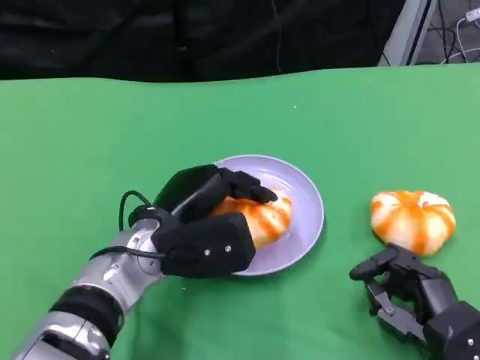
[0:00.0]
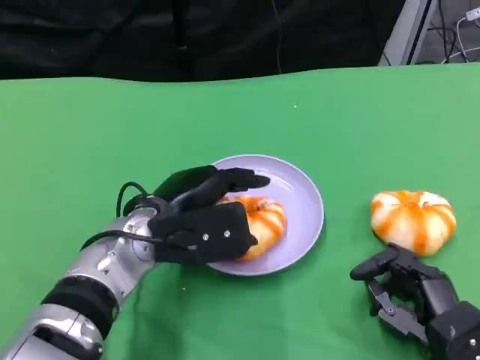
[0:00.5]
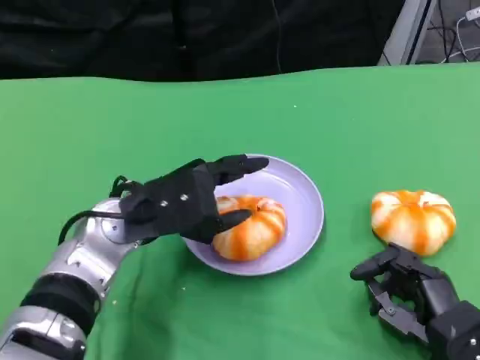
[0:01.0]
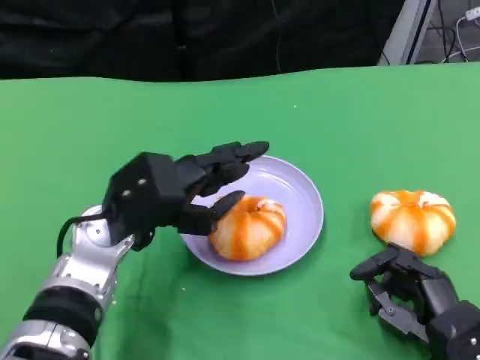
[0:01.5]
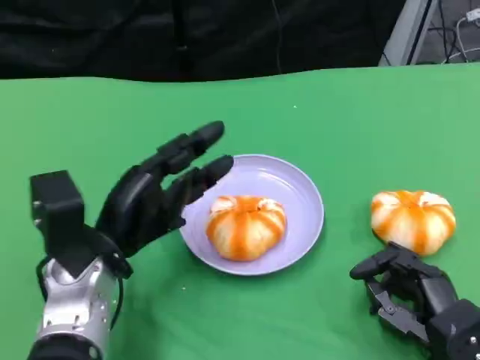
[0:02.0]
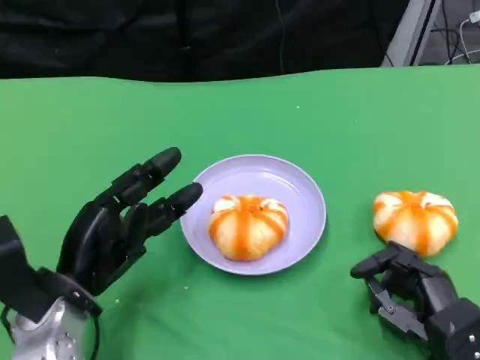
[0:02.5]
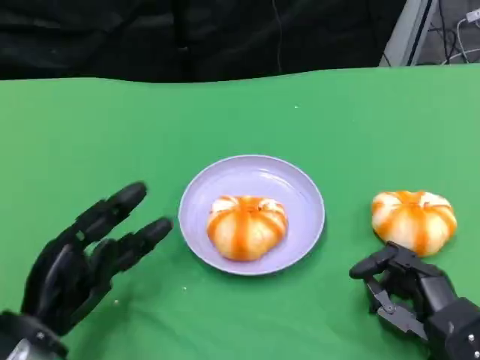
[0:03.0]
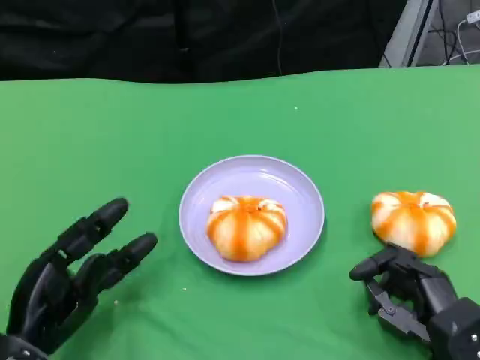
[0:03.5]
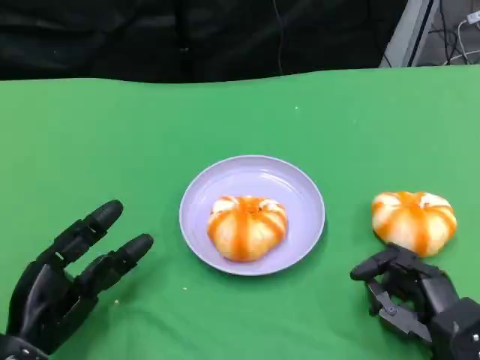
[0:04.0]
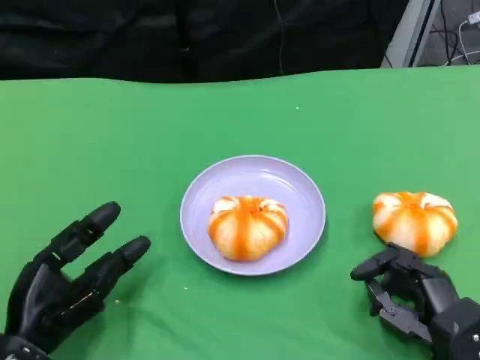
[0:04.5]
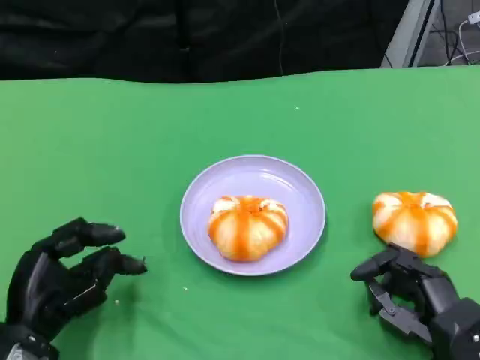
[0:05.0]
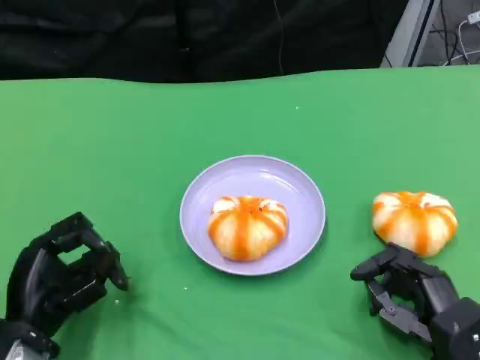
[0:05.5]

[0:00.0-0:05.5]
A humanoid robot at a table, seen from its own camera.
Task of the whole recording: Grasp the bread from the table and place it into the plate.
0:00.0 to 0:02.0: The left hand moves to the left, roughly 5 cm.
0:02.0 to 0:03.5: The left hand goes approximately 15 cm backward, to the left and downward.
0:03.5 to 0:05.5: The hands move only a little.

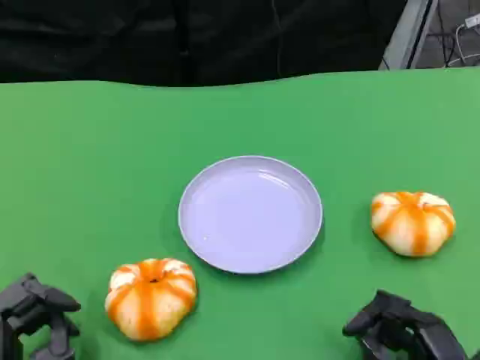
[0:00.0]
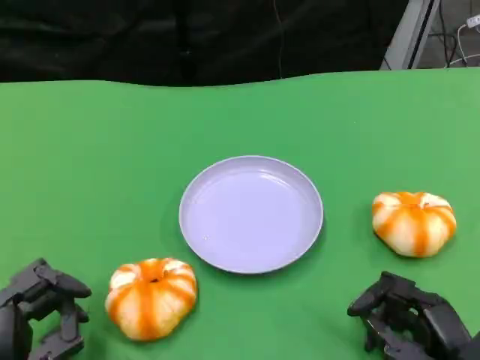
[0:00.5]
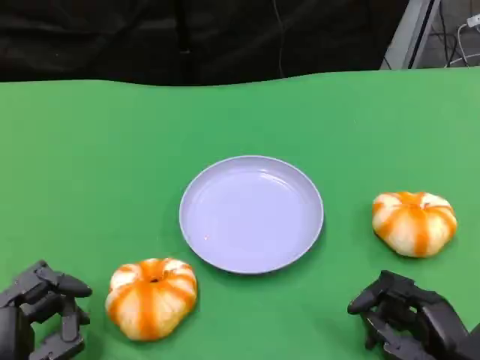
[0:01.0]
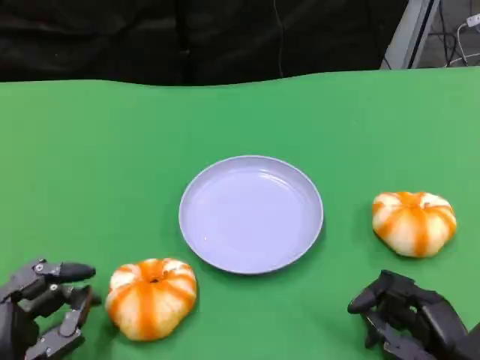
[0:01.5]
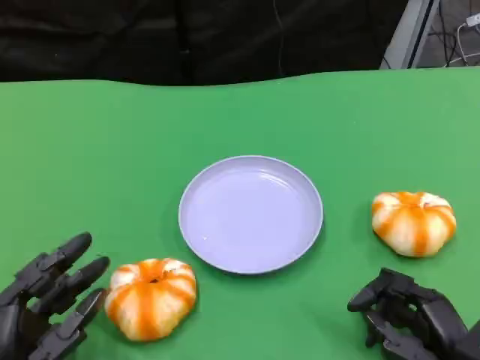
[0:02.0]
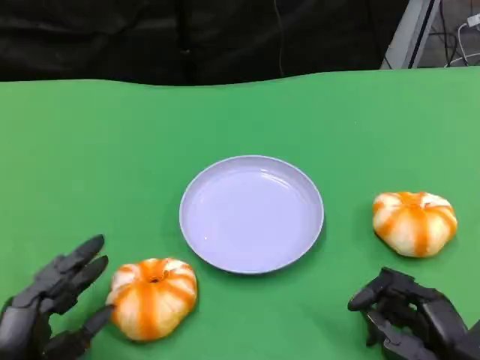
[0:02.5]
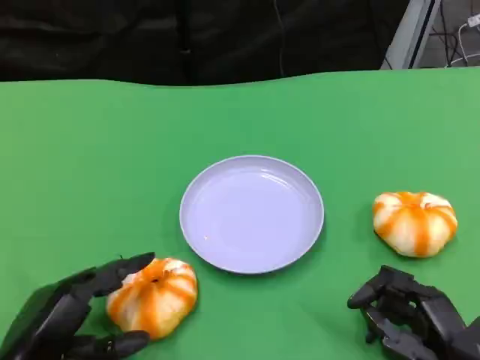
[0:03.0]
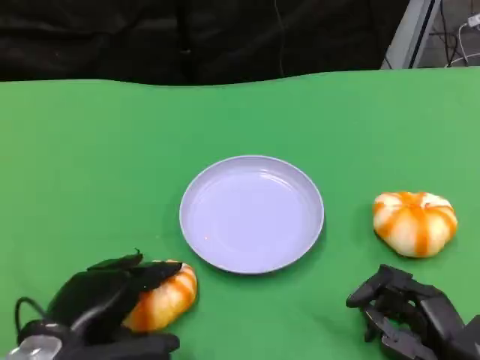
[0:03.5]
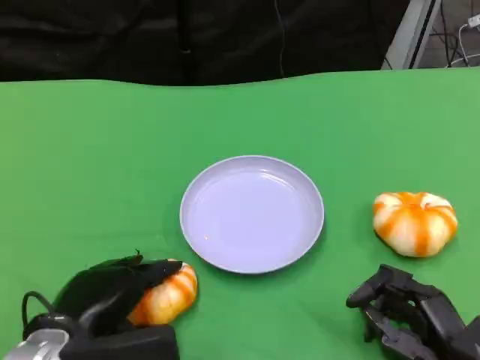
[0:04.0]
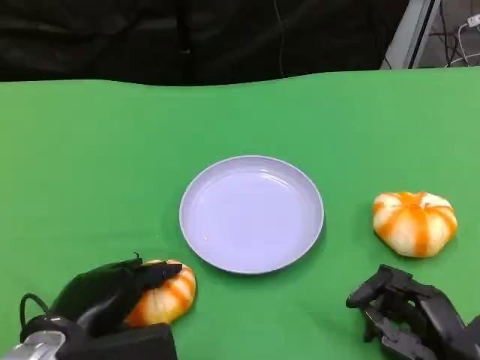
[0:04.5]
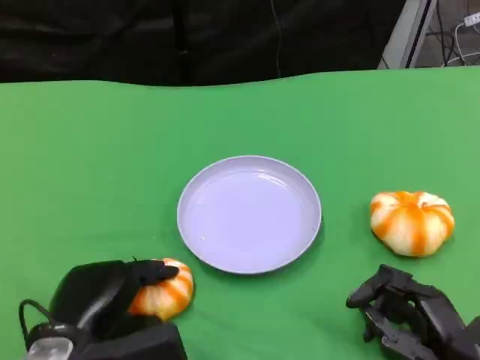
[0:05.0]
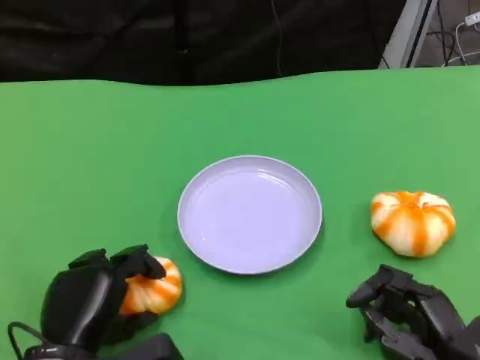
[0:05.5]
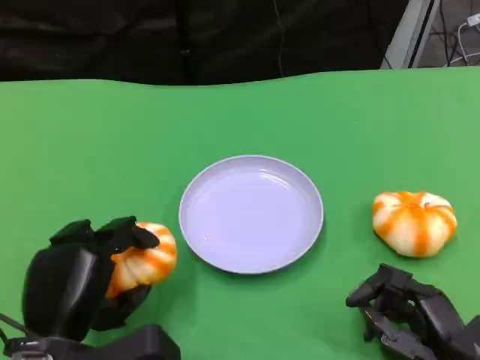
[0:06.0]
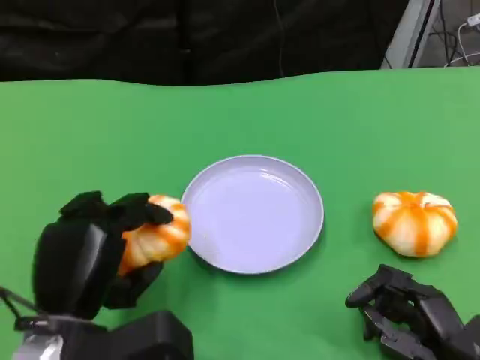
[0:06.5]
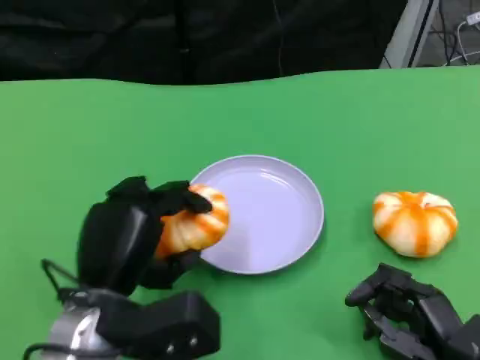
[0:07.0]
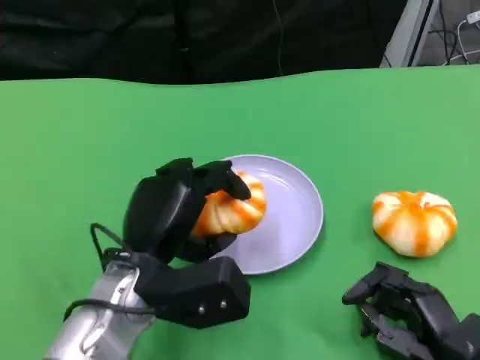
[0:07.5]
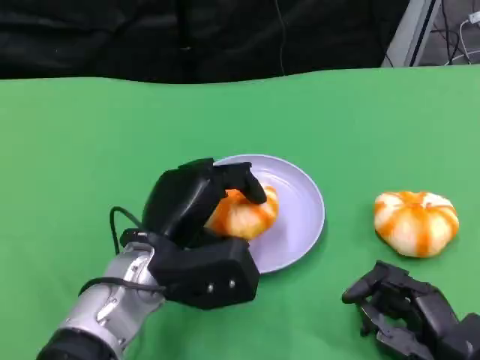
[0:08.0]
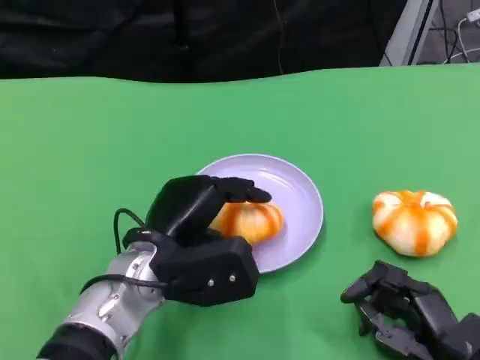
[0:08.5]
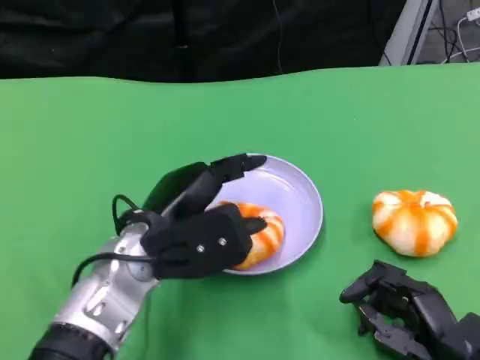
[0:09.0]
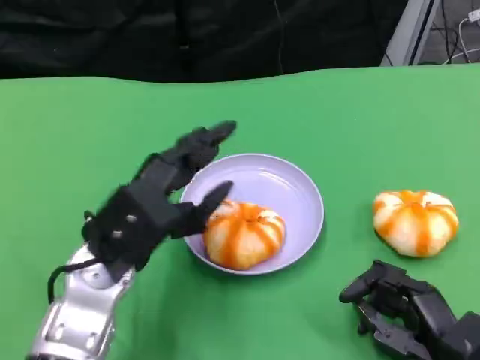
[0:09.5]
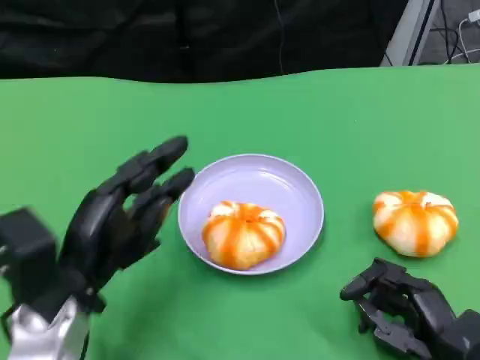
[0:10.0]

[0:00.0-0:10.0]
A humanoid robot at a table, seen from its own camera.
Task of the whole recording: Grasp the bread from the table and place it into the plate.
0:00.0 to 0:02.0: The hands move only a little.
0:02.0 to 0:04.0: The left hand travels upward by some 5 cm.
0:06.0 to 0:08.0: The left hand travels forward and to the right by some 15 cm.
0:08.0 to 0:10.0: The left hand goes some 10 cm to the left.

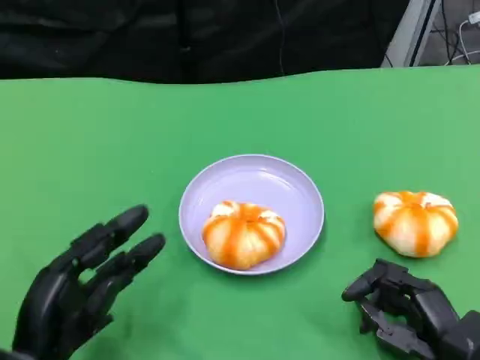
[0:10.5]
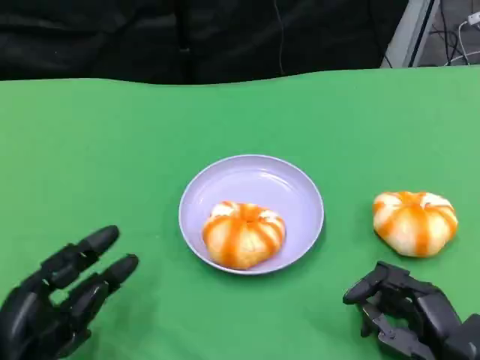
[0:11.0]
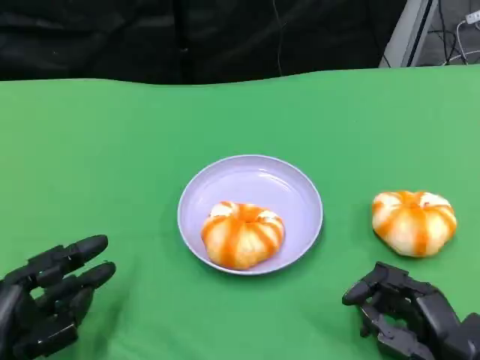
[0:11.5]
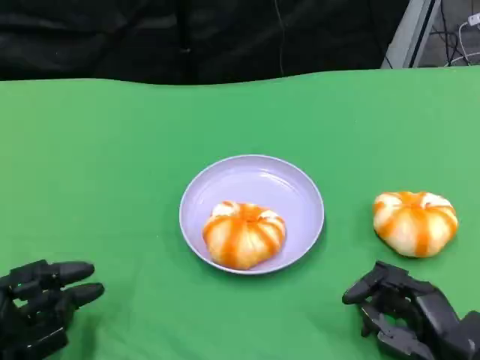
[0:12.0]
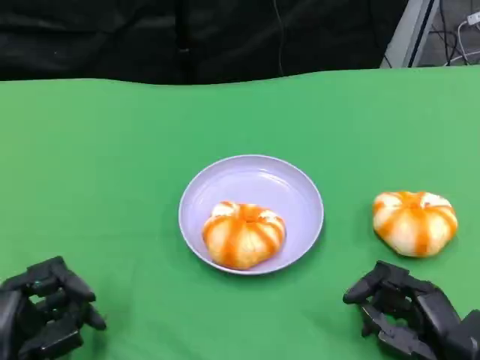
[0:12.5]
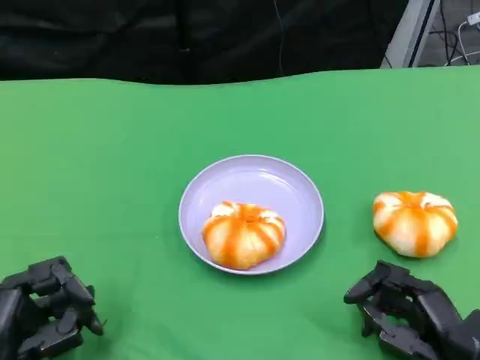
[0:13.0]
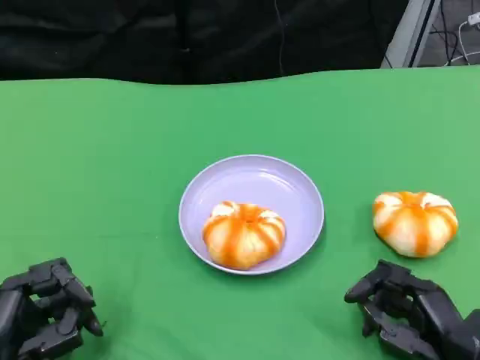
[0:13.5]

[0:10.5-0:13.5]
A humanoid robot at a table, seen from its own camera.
Task of the whole recording: Grasp the bread from the table and place it into the plate.
0:12.0 to 0:13.5: The hands move only a little.

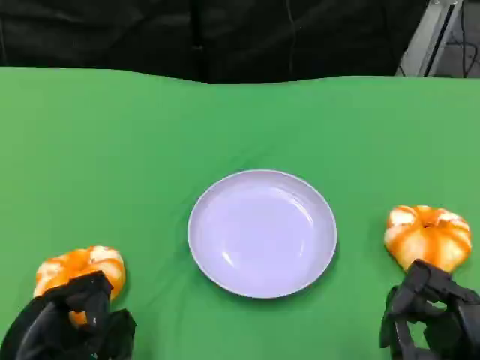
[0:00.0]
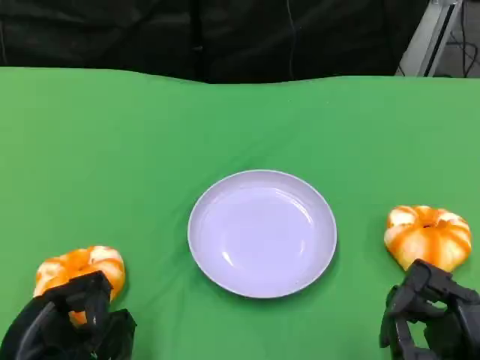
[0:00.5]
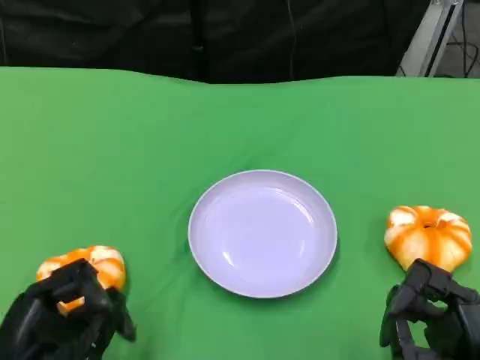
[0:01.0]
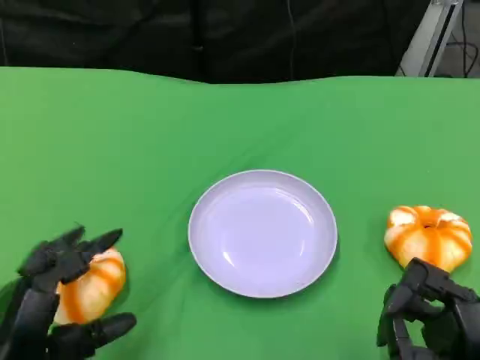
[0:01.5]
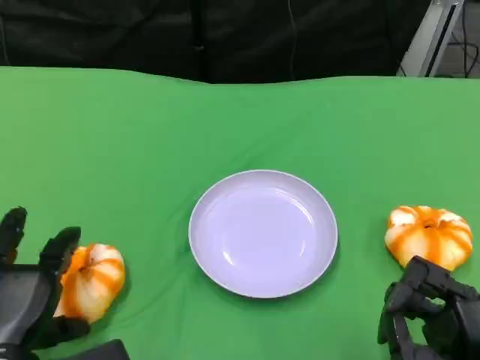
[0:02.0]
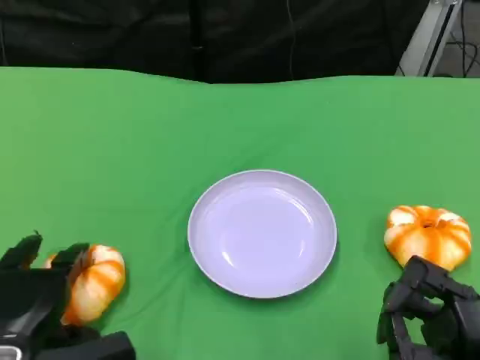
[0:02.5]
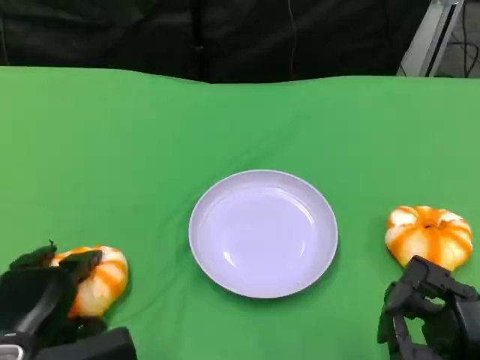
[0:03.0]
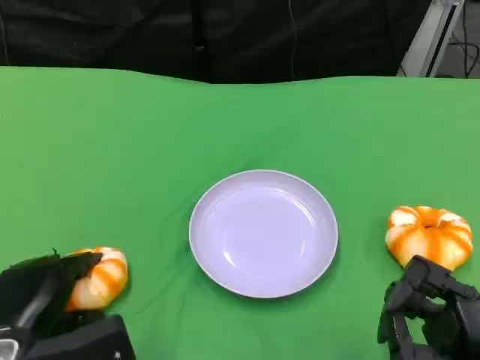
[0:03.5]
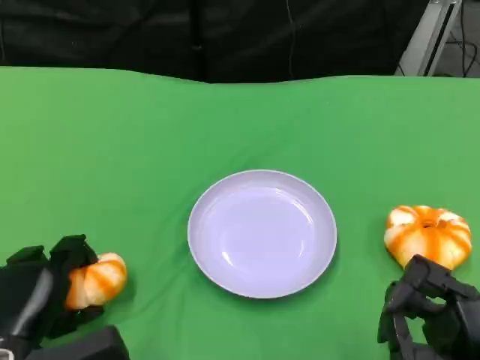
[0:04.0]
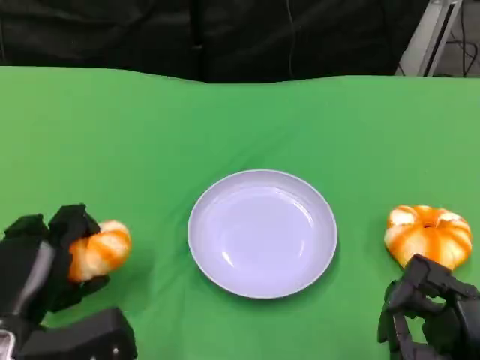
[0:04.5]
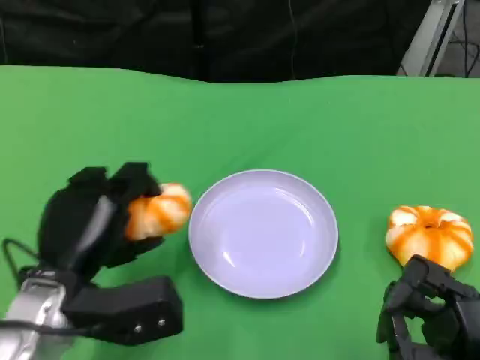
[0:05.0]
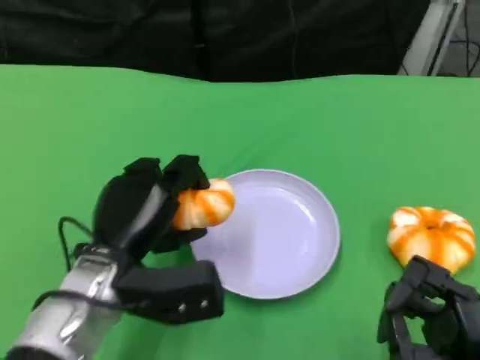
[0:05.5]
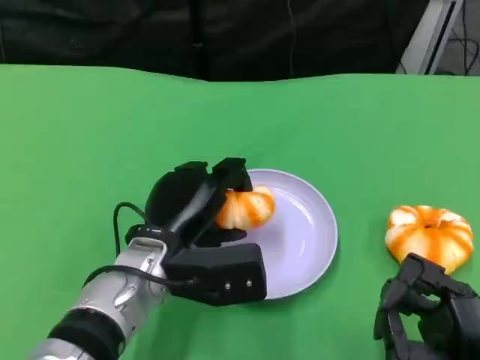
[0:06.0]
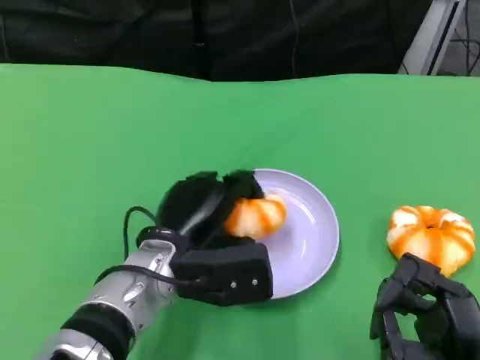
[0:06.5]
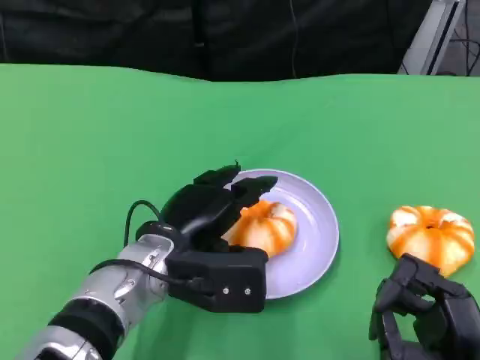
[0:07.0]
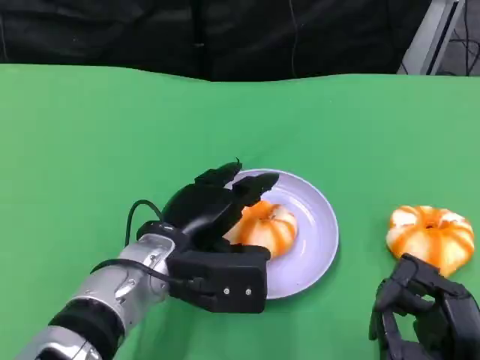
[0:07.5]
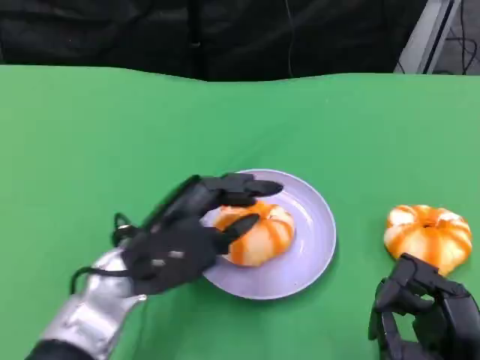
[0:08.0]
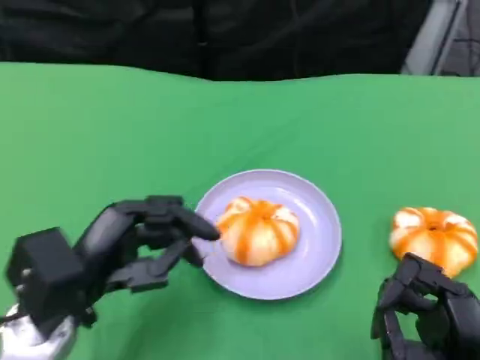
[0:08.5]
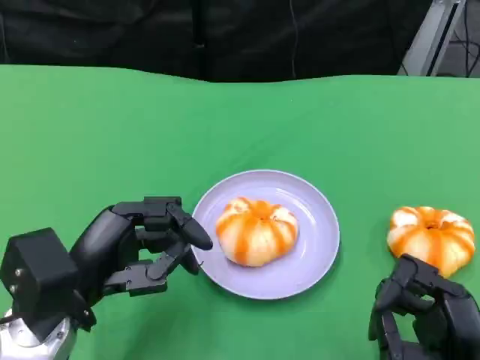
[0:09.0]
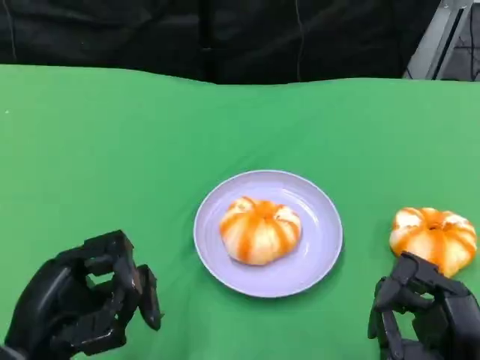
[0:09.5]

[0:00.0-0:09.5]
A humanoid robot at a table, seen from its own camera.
Task of the whole recording: Grasp the bread from the table and place it into the plate.
0:02.0 to 0:04.0: The hands stay close to where they were, moving slightly.
0:04.0 to 0:05.5: The left hand shifts some 15 cm to the right and forward.
0:07.5 to 0:09.5: The left hand goes roughly 20 cm to the left and backward.
